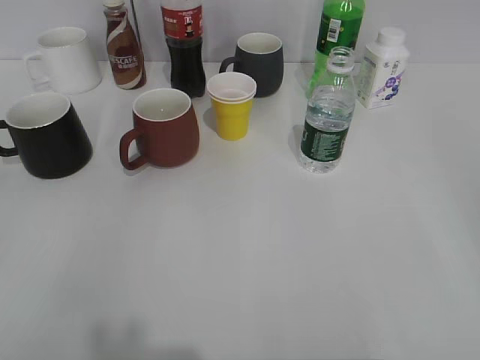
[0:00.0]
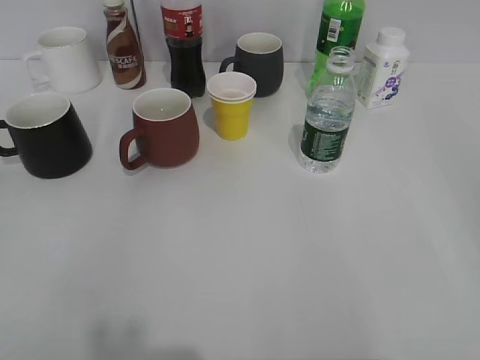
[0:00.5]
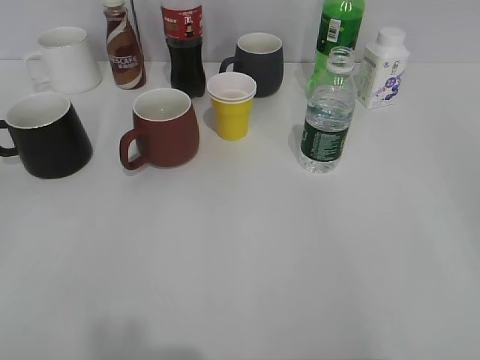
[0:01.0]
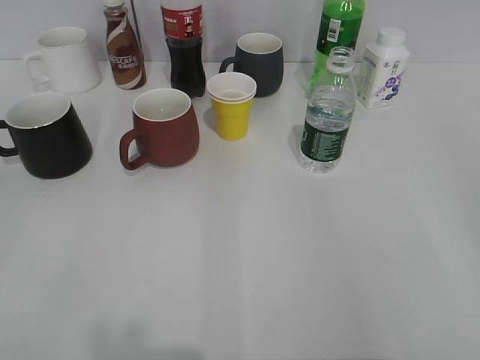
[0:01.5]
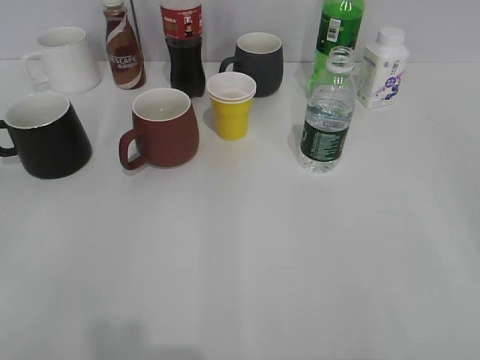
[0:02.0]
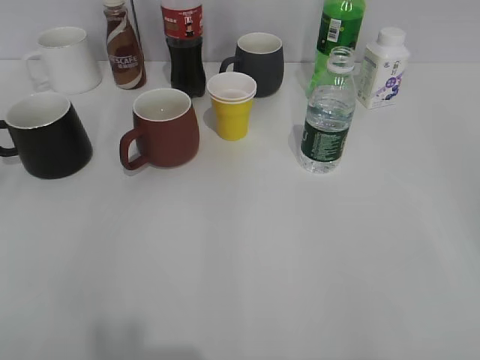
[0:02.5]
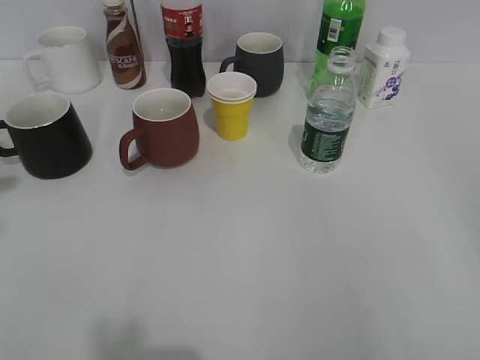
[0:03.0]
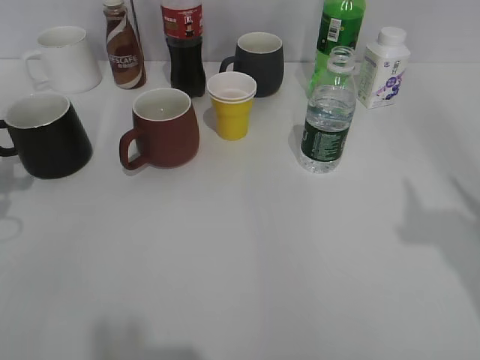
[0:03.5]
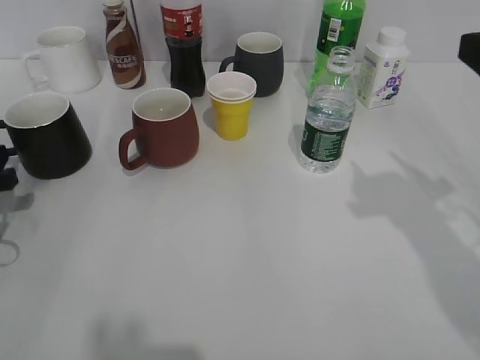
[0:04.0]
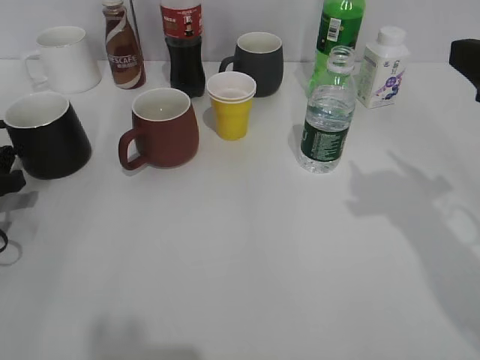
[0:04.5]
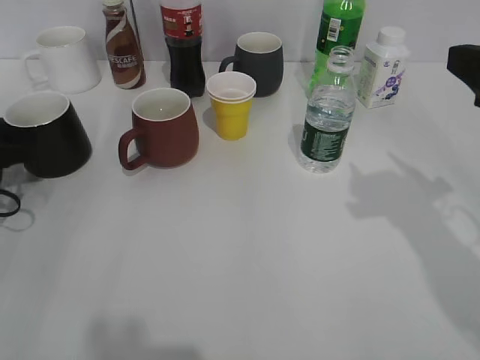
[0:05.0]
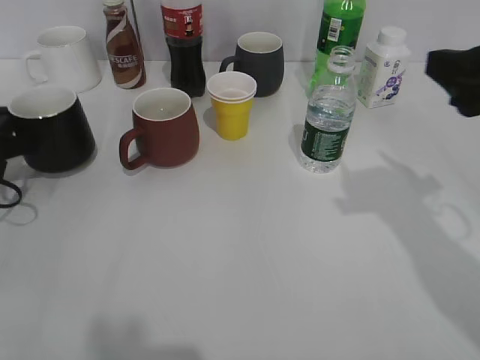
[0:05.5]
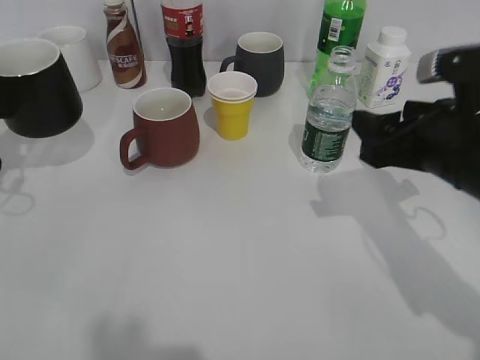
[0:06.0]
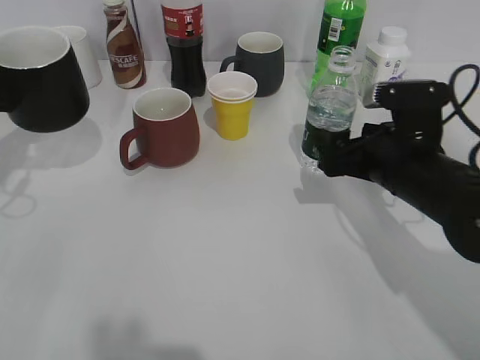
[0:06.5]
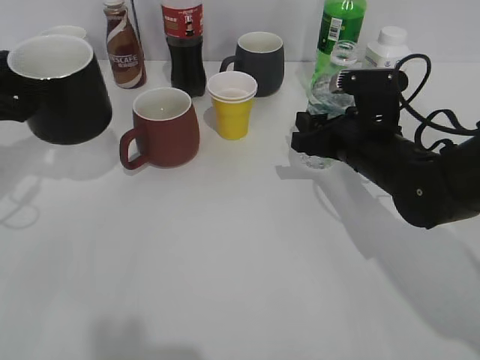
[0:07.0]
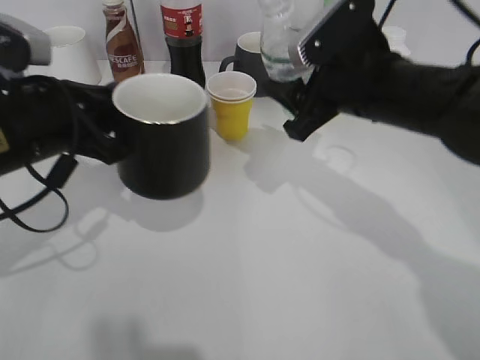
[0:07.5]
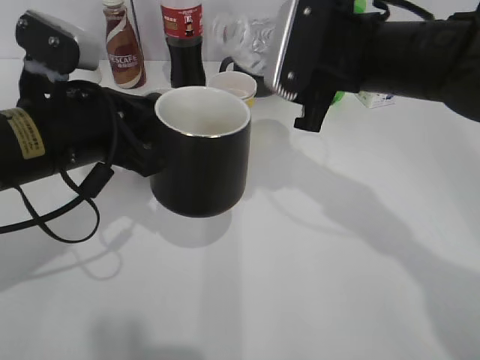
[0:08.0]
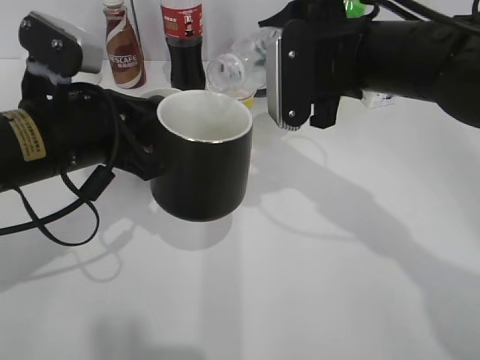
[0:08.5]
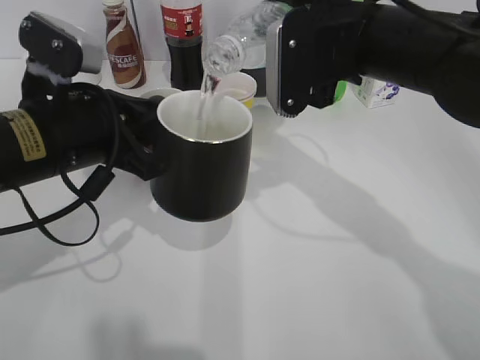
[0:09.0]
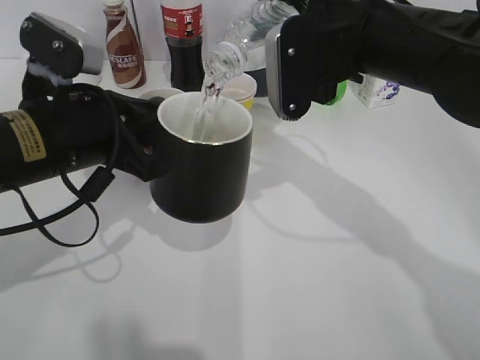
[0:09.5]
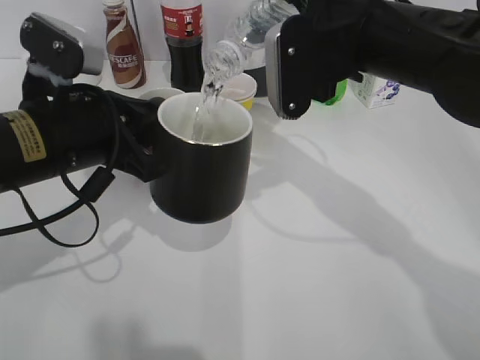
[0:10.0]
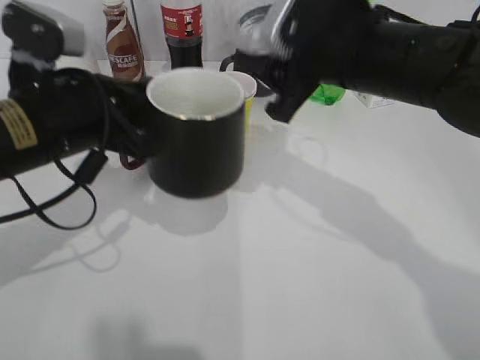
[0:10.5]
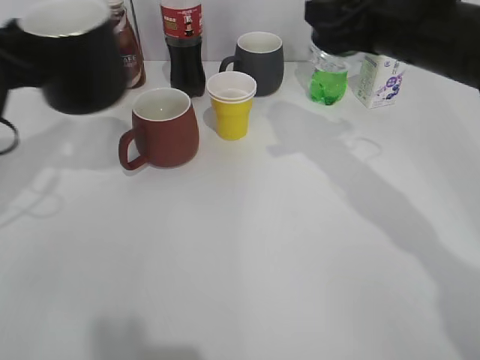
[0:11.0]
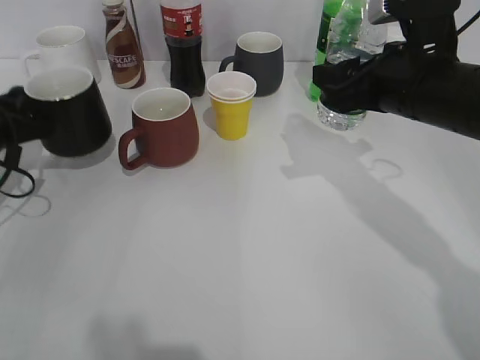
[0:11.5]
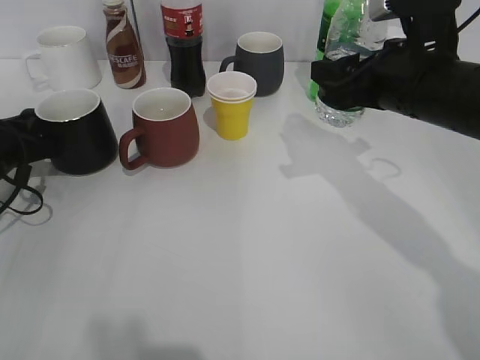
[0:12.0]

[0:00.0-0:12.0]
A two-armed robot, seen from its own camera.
Step, 0:02.0 to 0:05.0: Grasp the black cup with left gripper.
Step, 0:05.5 to 0:06.0: Lift the black cup with left gripper.
Step, 0:06.5 to 0:07.0: Grasp the bottle with water with right gripper.
Step, 0:07.5 to 0:10.0: Pour the water from bottle to cup with right gripper.
0:02.0 to 0:04.0: The right gripper travels forward by about 20 cm. Meanwhile the left gripper shifts approximately 30 cm forward and downward.
0:04.0 to 0:06.0: The left gripper travels upward by approximately 5 cm, and closes its fingers. The right gripper is displaced downward and to the left by approximately 10 cm.
0:06.0 to 0:08.0: The left gripper travels to the right and backward by roughly 20 cm, while the right gripper heads to the left, forward and upward, covering approximately 10 cm, and closes up.
0:10.0 to 0:12.0: The right gripper heads to the right, covering approximately 5 cm; the left gripper travels to the left, downward and forward by approximately 20 cm.

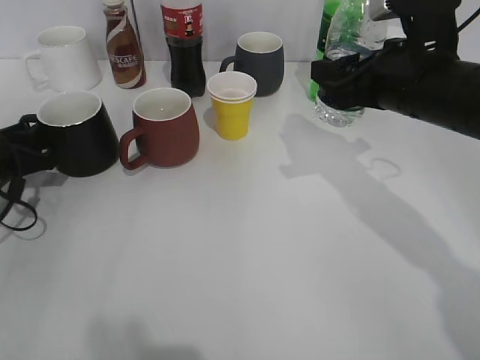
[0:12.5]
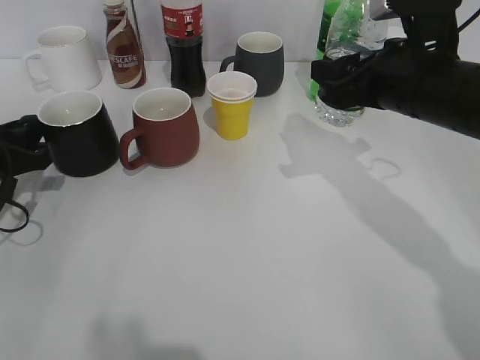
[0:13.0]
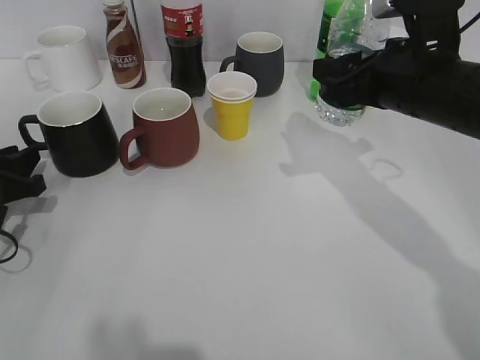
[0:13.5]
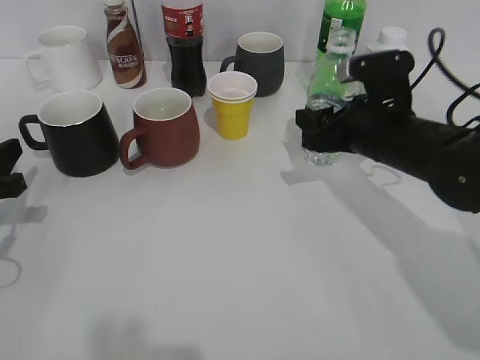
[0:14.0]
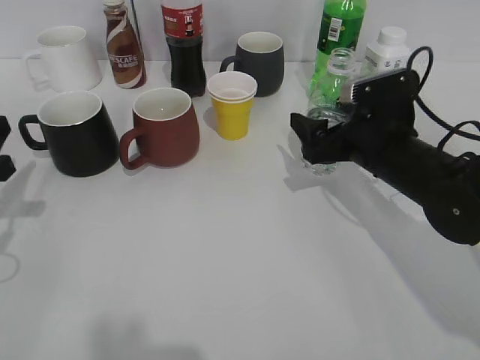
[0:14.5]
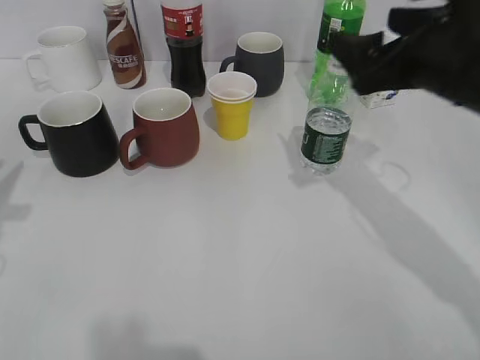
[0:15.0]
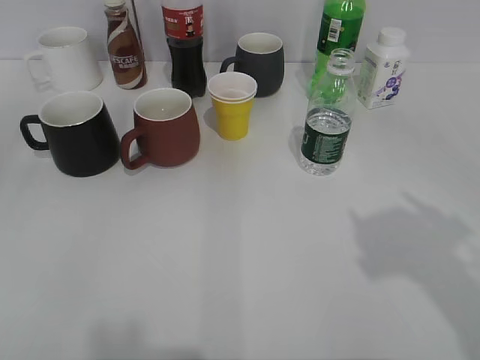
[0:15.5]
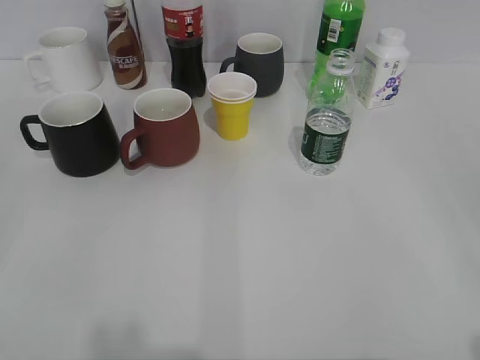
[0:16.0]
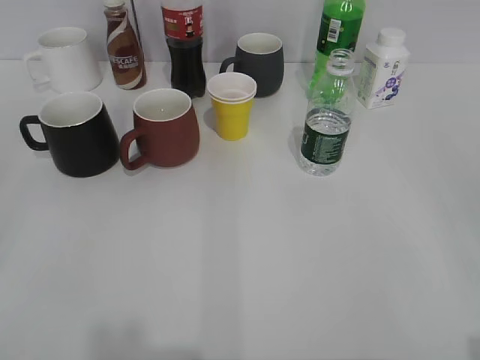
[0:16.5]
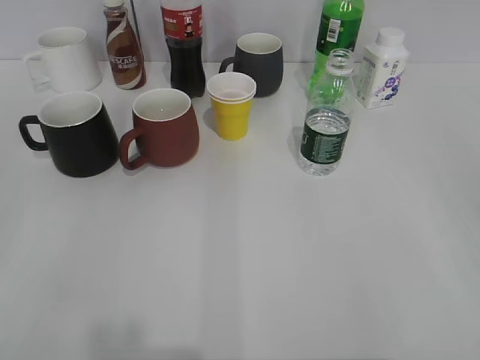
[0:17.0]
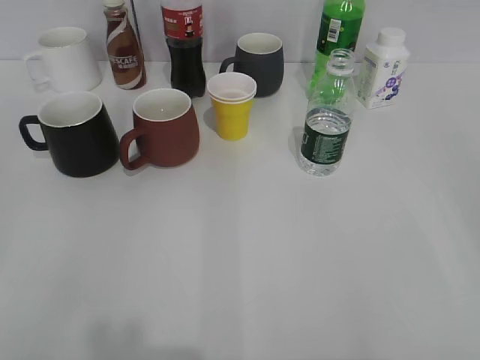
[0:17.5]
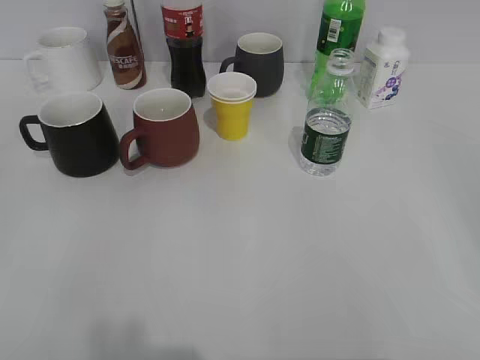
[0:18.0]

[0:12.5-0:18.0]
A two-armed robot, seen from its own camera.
Step, 0:12.5 to 0:14.5: Place the water bottle on the table with right gripper.
0:12.5 to 0:14.5: The right gripper goes about 10 cm downward, and opens its fingers. The left gripper heads backward and upward, covering approximately 10 cm.
0:14.5 to 0:16.0: The left gripper moves backward and upward, roughly 25 cm, and opens its fingers, while the right gripper heads backward, upward and to the right, covering some 40 cm.

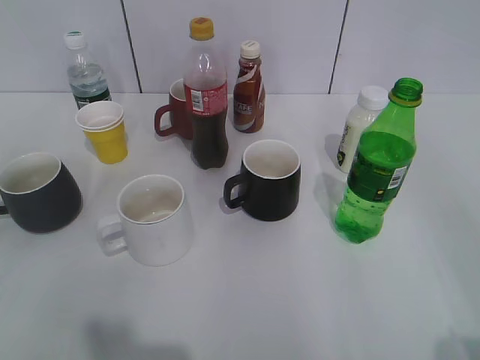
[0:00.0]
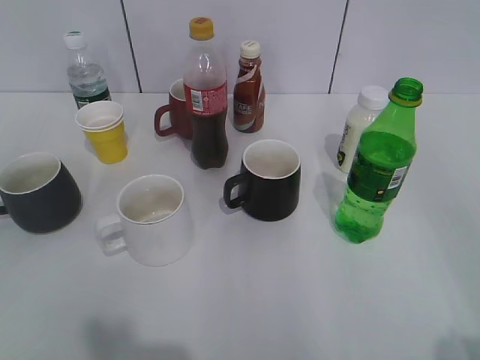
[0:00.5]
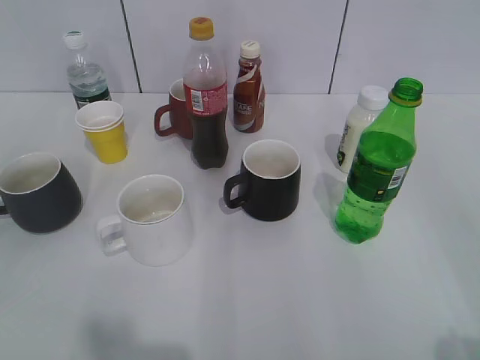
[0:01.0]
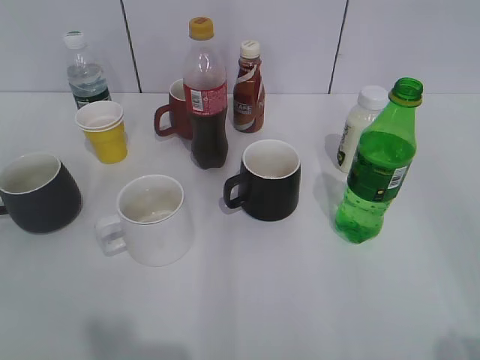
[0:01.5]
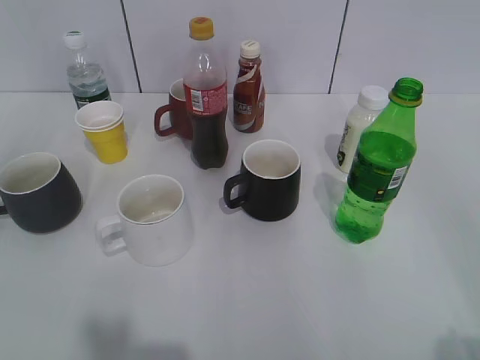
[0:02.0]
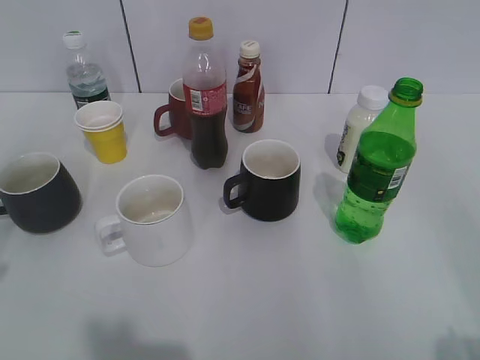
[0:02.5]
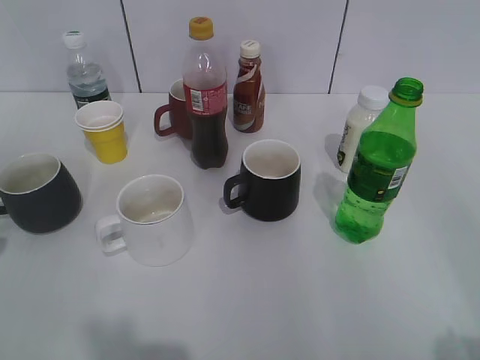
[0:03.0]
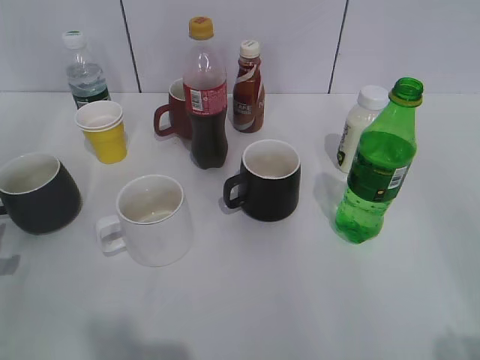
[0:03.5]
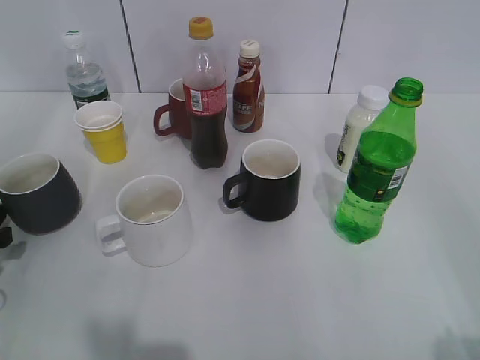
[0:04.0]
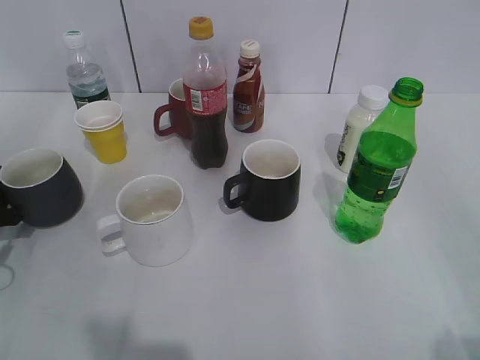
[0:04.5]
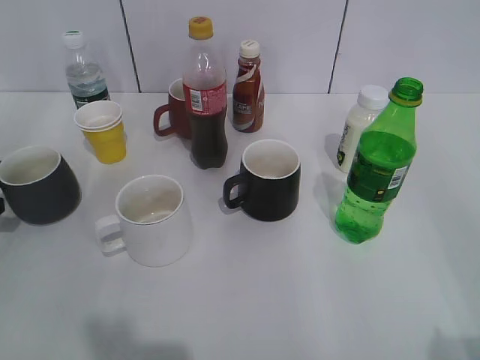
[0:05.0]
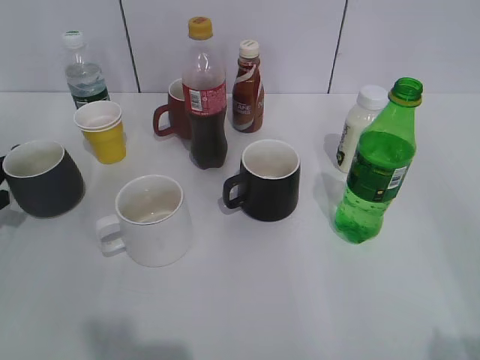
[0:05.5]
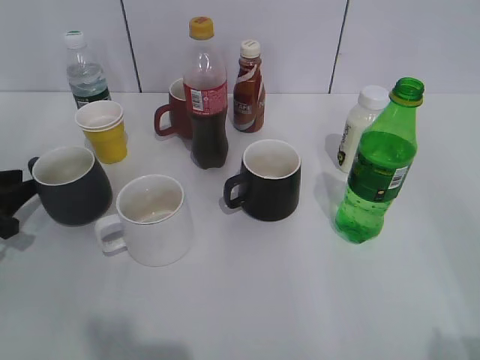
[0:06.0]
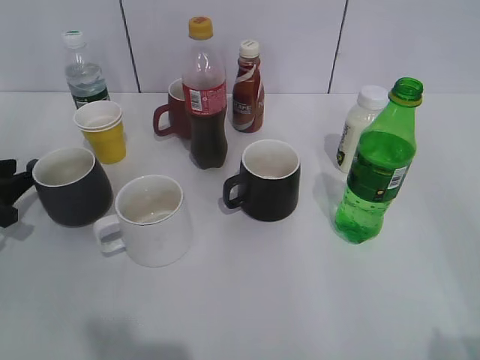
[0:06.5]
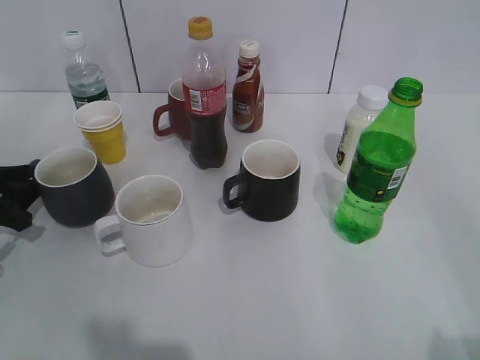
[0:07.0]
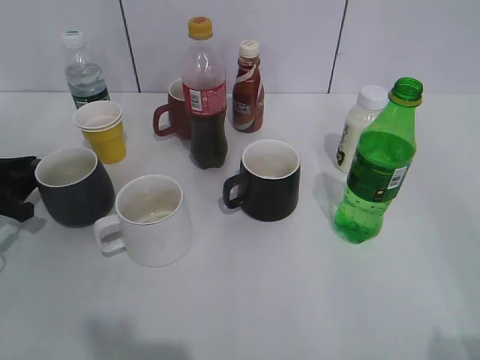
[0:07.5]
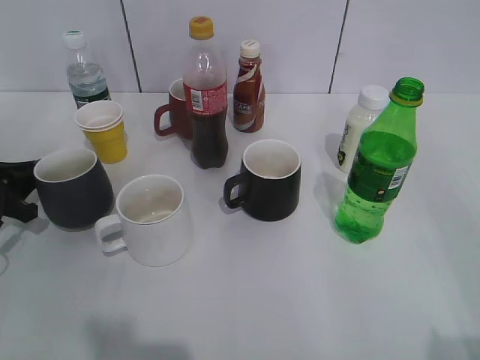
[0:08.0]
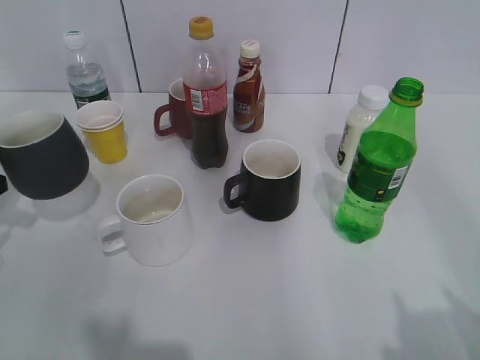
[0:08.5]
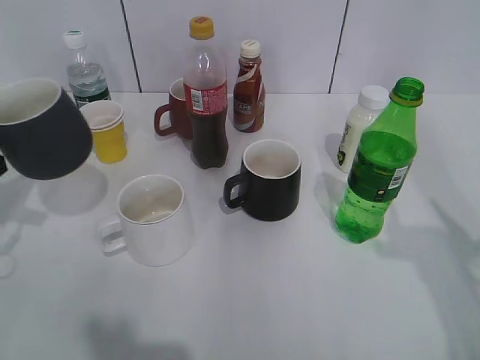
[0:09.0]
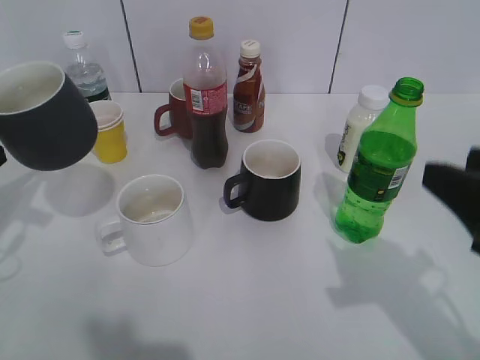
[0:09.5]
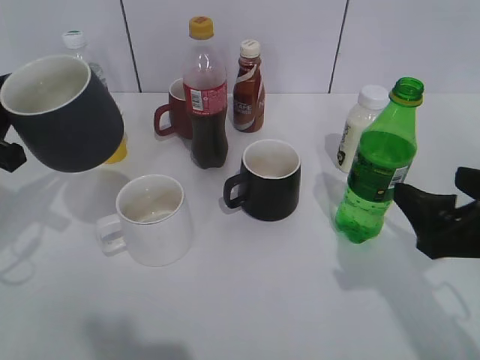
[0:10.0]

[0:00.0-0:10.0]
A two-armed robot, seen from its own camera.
Step, 0:04.0 to 0:07.5: Grasp the grey cup with left gripper.
Step, 0:08.0 to 0:08.5: Lift the grey cup with left gripper.
0:02.0 to 0:04.0: The left gripper is displaced downward and forward by some 35 cm.
0:06.0 to 0:08.0: The left gripper closes its fingers.
0:08.0 to 0:10.0: The right gripper heads forward and downward, covering roughly 20 cm, and opens its fingers, while the left gripper is displaced upward, backward and to the right by some 15 cm.
